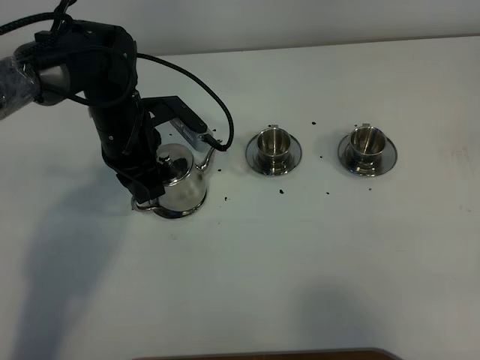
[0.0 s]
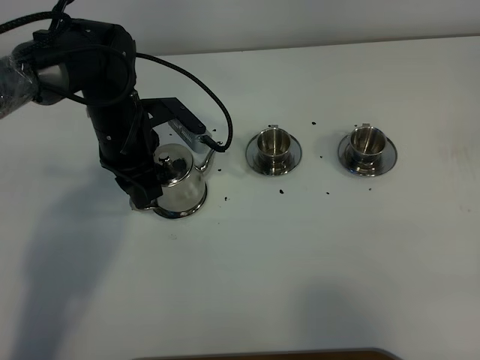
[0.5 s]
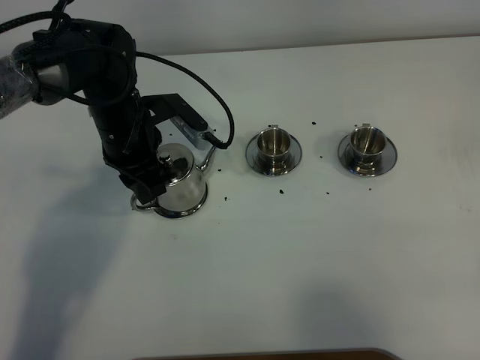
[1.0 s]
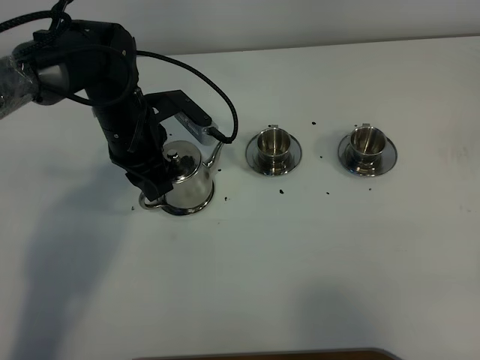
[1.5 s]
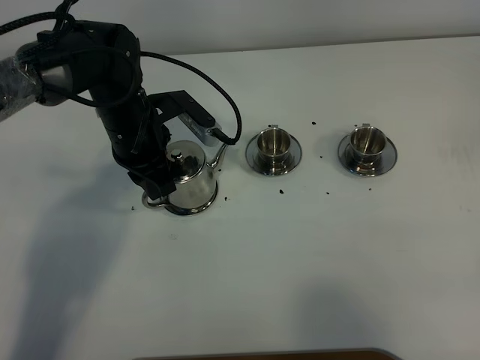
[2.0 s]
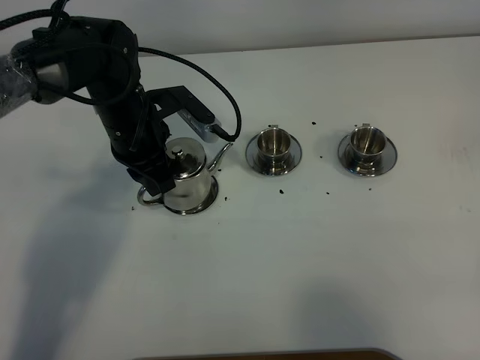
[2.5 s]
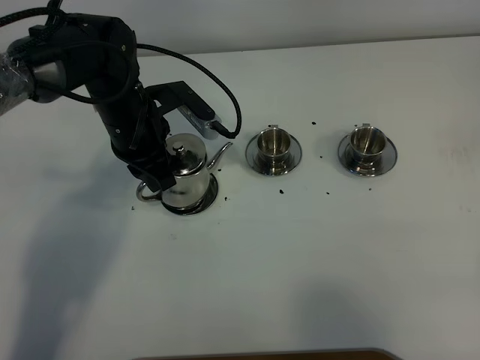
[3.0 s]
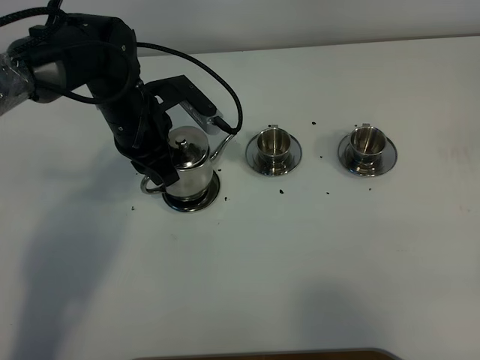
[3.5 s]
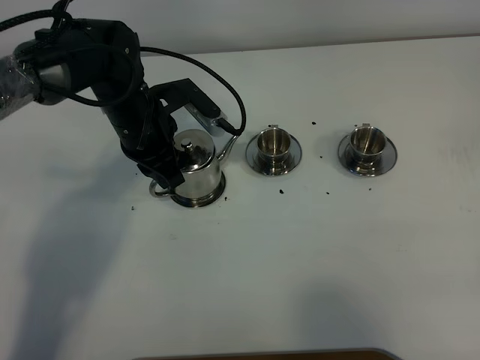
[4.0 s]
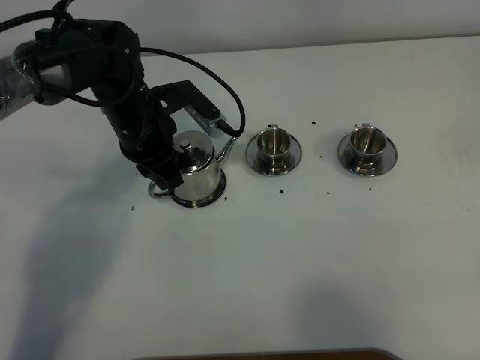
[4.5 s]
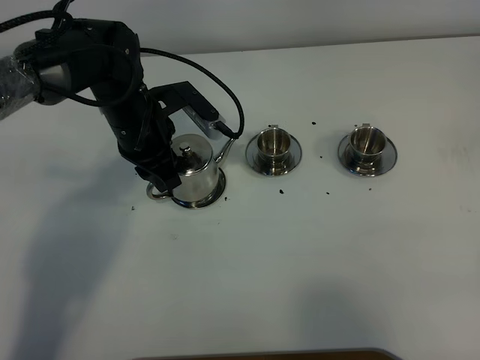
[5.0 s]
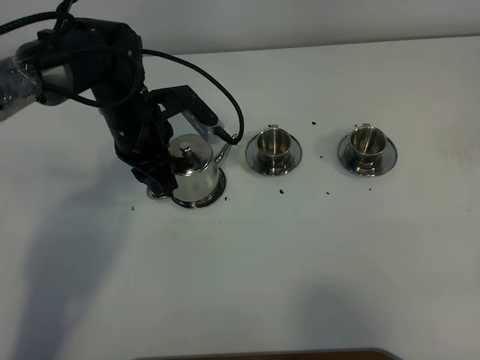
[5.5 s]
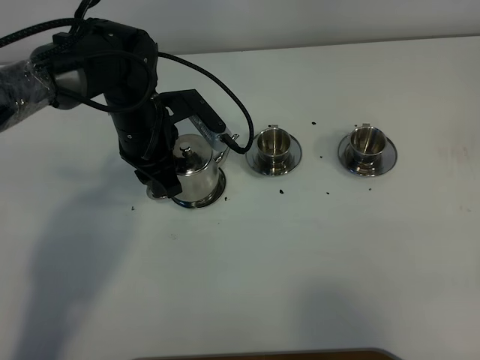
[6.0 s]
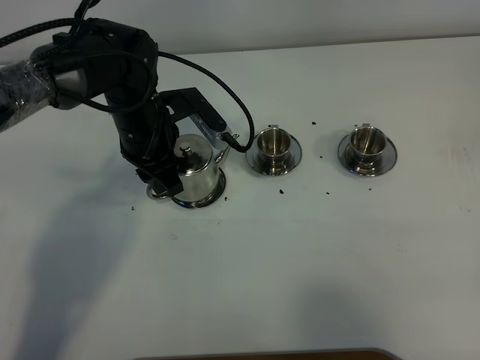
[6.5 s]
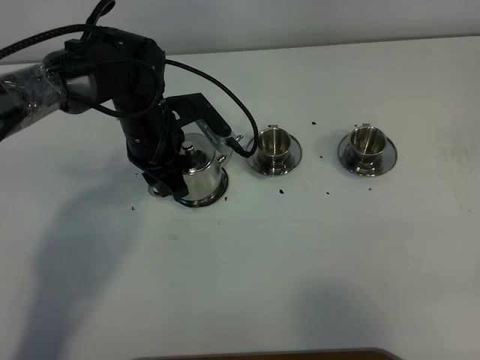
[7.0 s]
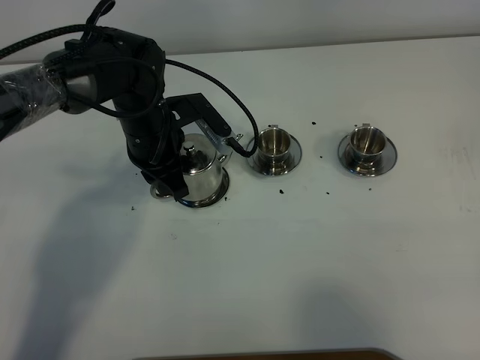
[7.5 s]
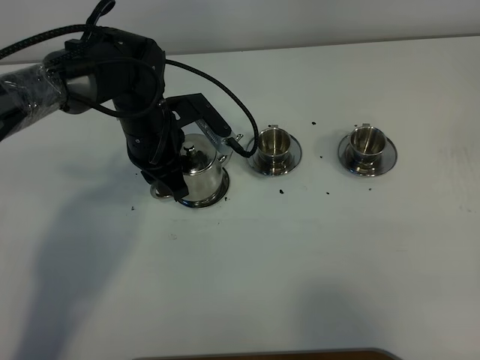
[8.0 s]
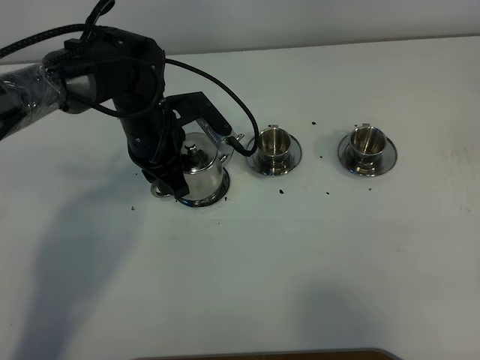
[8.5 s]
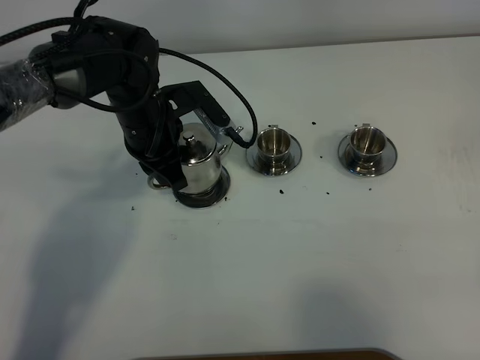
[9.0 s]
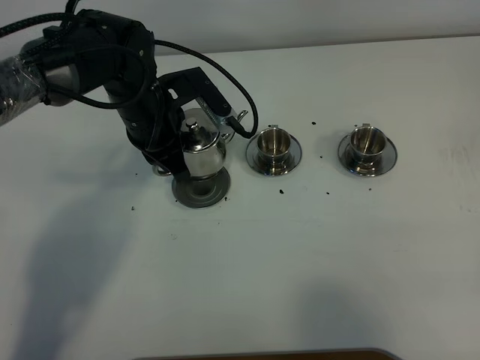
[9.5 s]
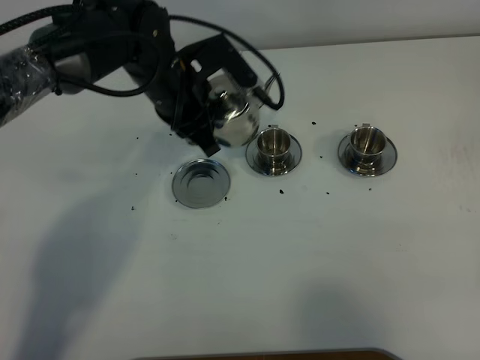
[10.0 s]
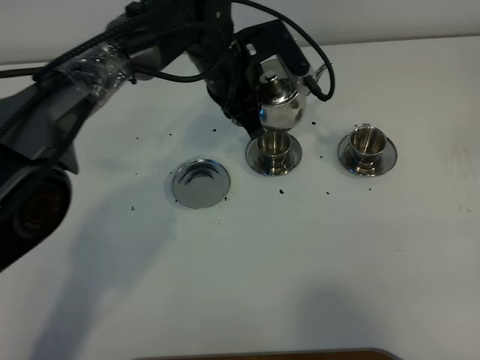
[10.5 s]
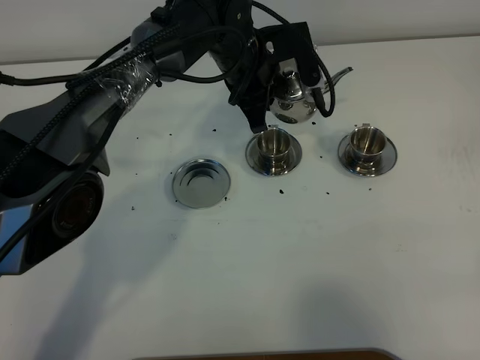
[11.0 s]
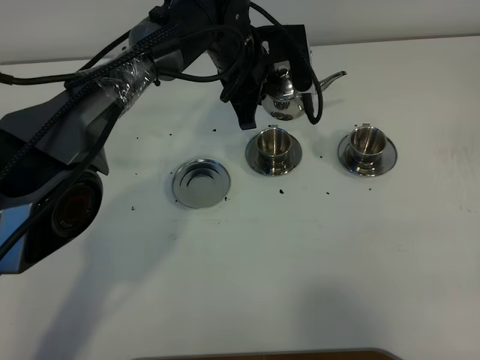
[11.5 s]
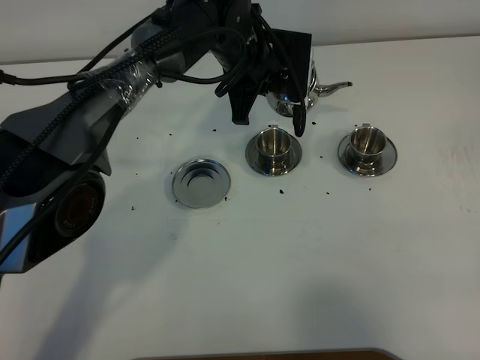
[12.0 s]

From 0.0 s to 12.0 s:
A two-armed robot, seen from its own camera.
Task of the whole recording: grasp the stainless steel teapot and pour the tea into the two stainless steel teacups one by one, put the stainless steel teapot back in its original place.
Step, from 0.0 s to 9.0 s: Pick up the teapot with the left gripper.
From 0.0 s to 2.0 s: The left gripper opens and closes again.
From 2.0 s to 6.0 s: The grippers make only small movements.
From 6.0 s to 8.0 s: The left gripper closes up.
From 8.0 s to 10.0 s: The left gripper goes some 5 cm upward.
From 10.0 s to 12.0 s: The left gripper shifts about 10 cm to the right and forward.

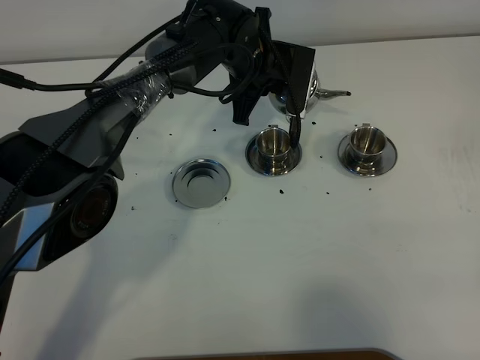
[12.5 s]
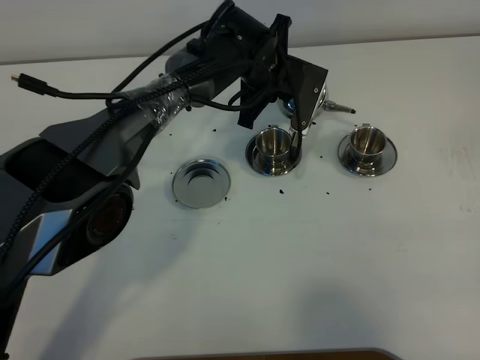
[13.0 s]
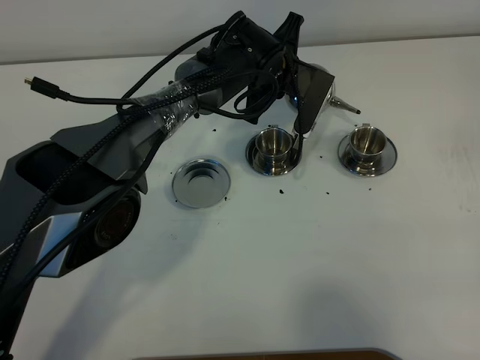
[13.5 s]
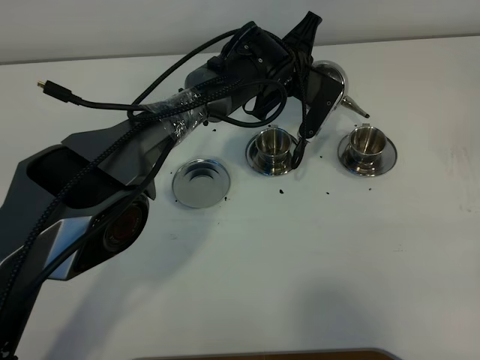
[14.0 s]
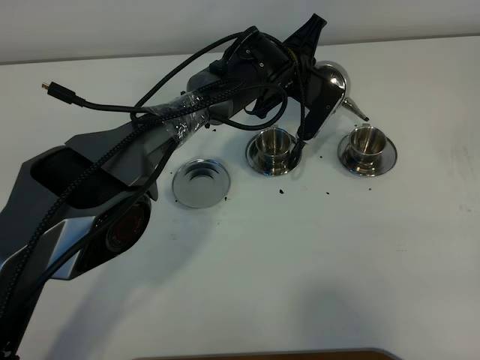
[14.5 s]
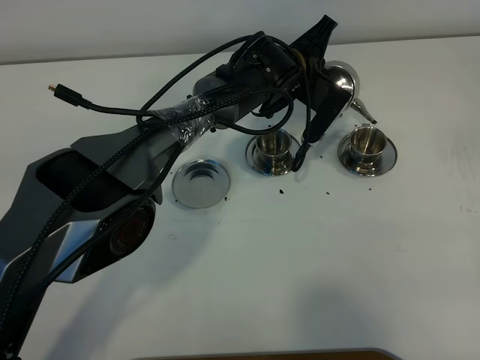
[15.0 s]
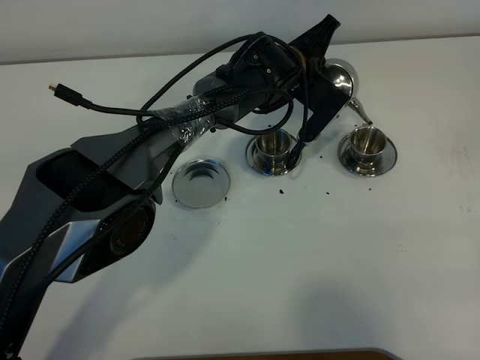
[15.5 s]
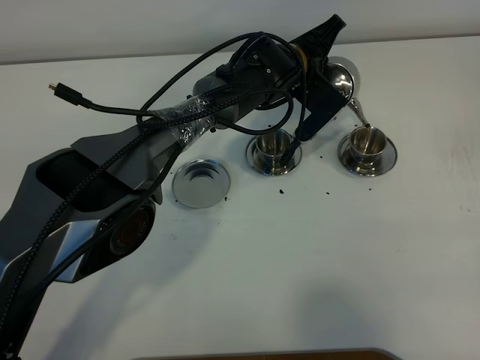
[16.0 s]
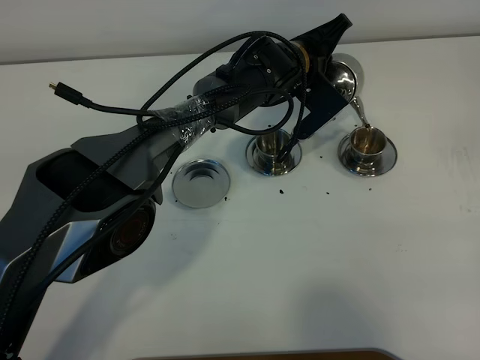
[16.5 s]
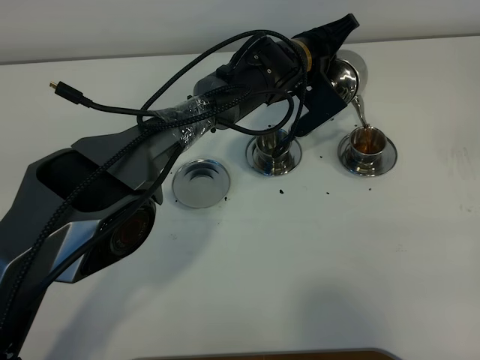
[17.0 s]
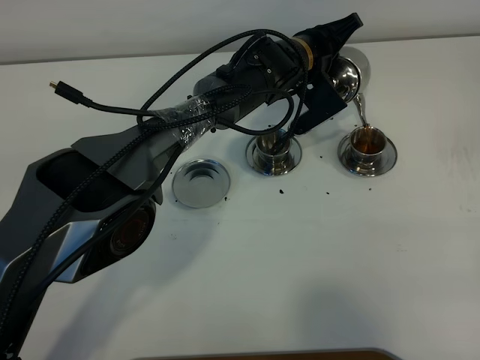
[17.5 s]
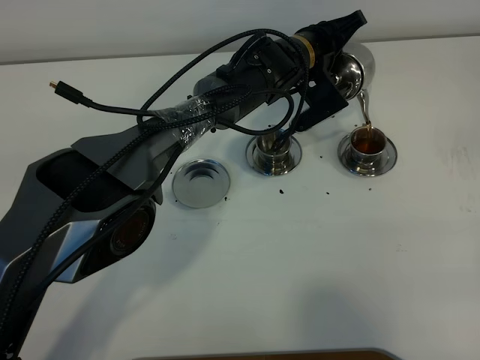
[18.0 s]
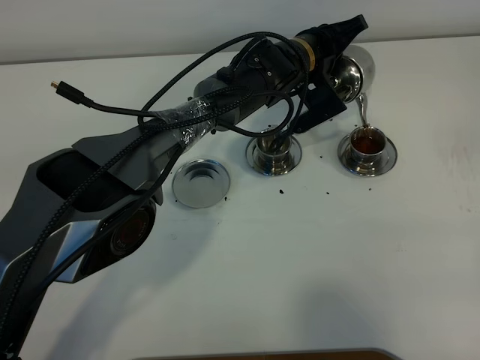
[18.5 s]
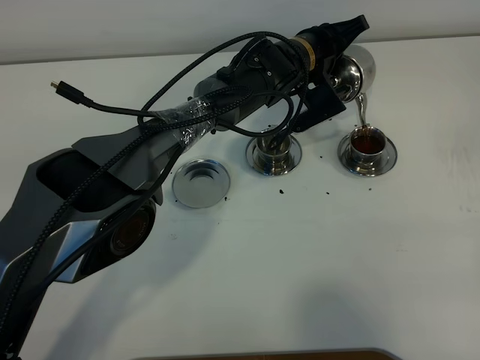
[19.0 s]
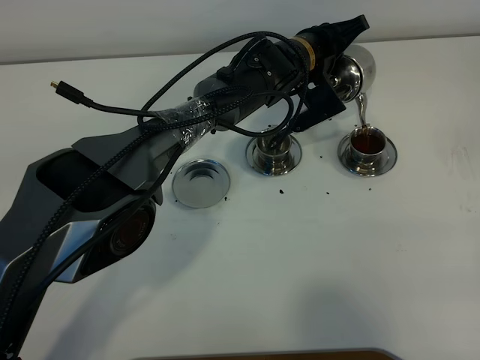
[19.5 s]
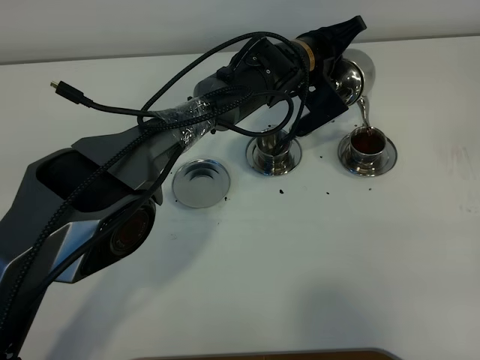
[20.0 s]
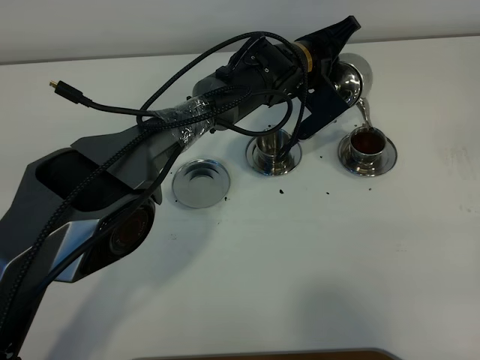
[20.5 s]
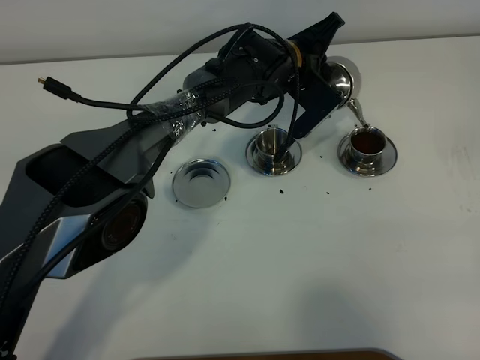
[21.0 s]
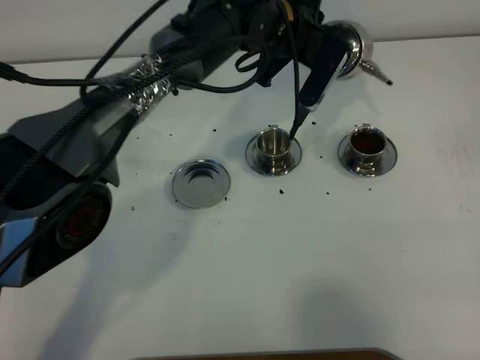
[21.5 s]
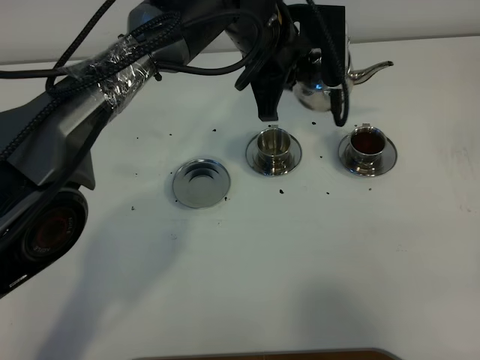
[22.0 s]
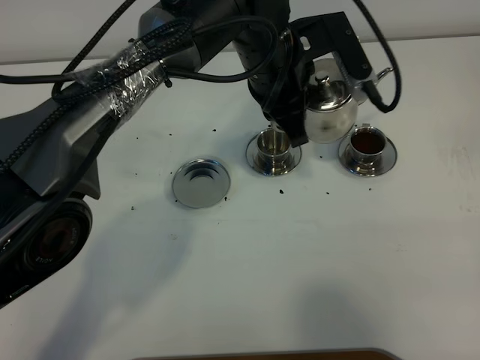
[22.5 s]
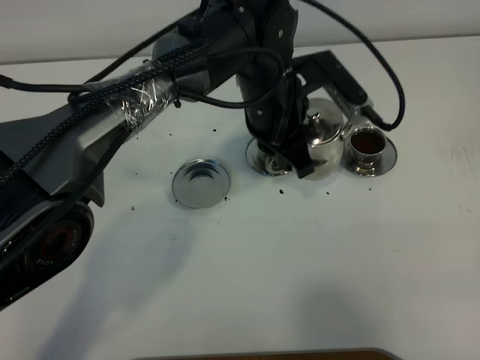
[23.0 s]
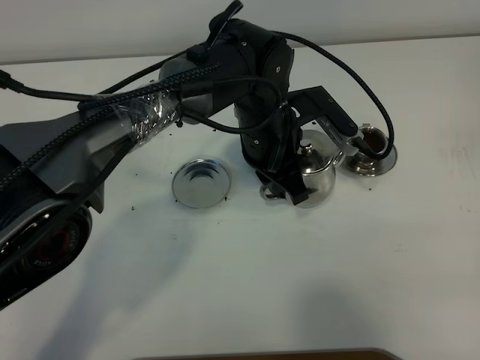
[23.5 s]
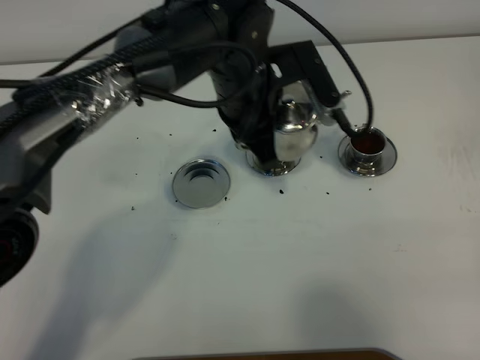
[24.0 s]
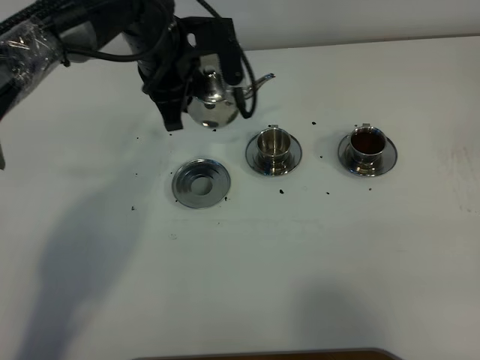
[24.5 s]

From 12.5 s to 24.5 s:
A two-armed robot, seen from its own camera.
Task of the whole recording: grasp the stainless steel teapot and pour the tea into the two stainless steel teacups one by one, put the stainless steel teapot back in its original place.
From 12.5 s to 14.5 s: The left gripper shifts by some 5 cm.
From 14.5 s to 16.5 s: The grippers stay close to where they were, moving slightly.
From 16.5 s to 20.5 s: There are only small adjustments of the grippers.
From 20.5 s to 22.5 s: The left gripper is displaced upward and backward by approximately 15 cm.
From 22.5 s to 24.5 s: The left gripper shifts some 15 cm to the left.

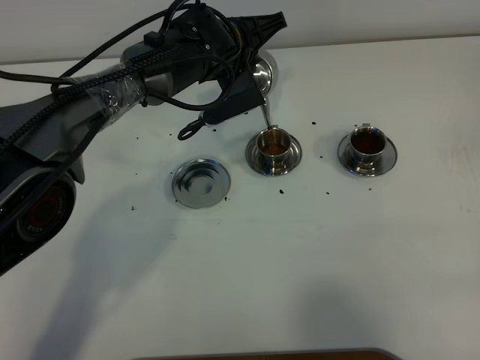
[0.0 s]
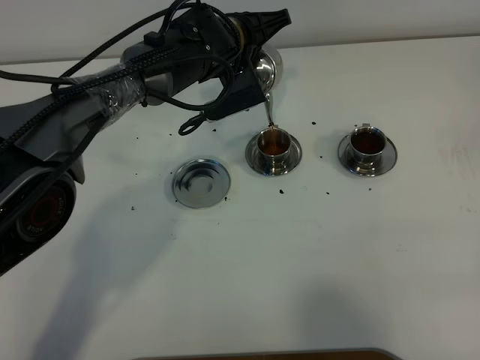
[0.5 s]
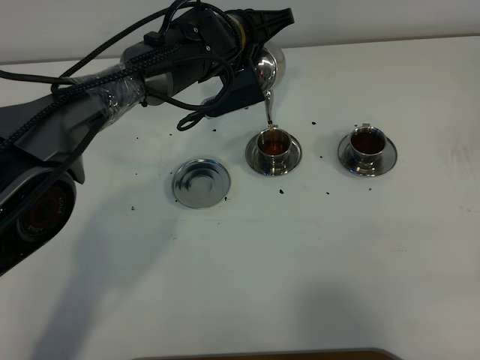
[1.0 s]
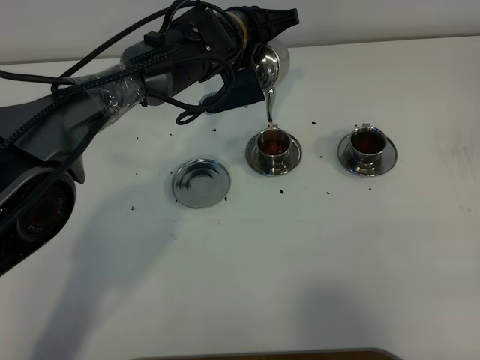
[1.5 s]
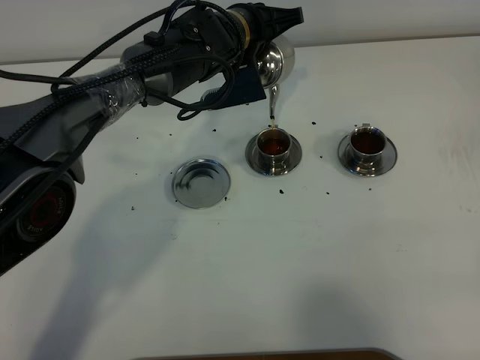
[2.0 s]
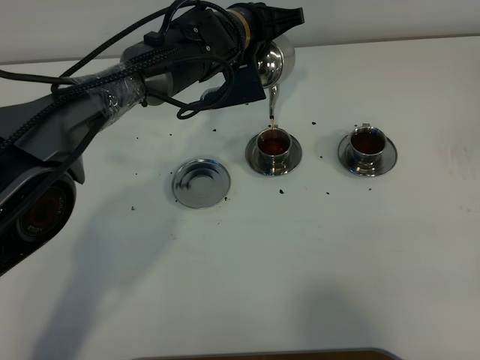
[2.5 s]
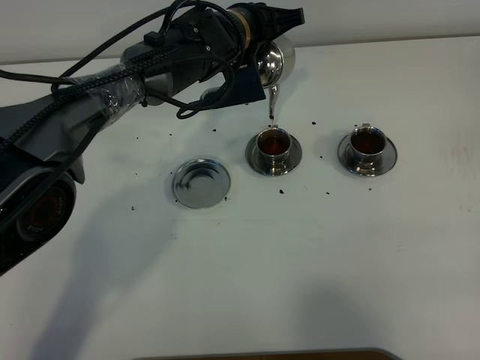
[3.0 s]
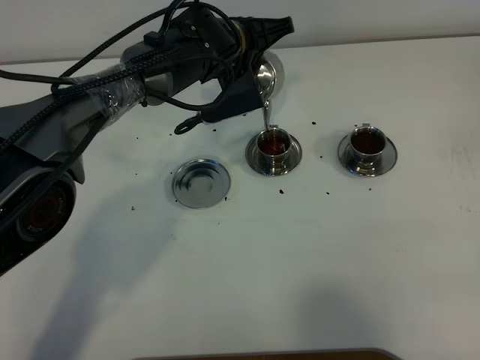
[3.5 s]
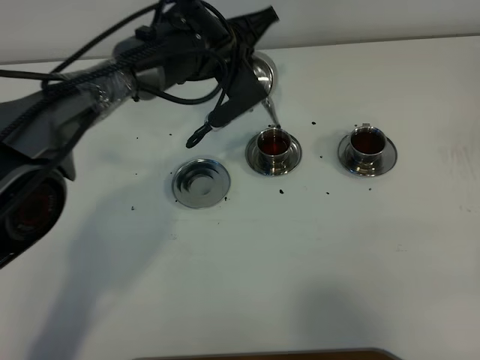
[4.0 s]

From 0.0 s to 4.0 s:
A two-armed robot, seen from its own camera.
Task of the whole recording: grasp the stainless steel teapot and pour the tea into the two stainless steel teacups one by one, put the stainless steel teapot back in its original place.
From 0.0 s to 2.0 s: The grippers move only a little.
